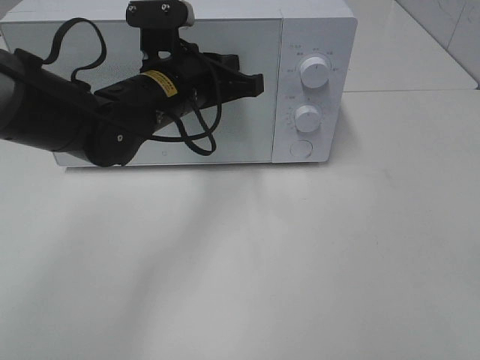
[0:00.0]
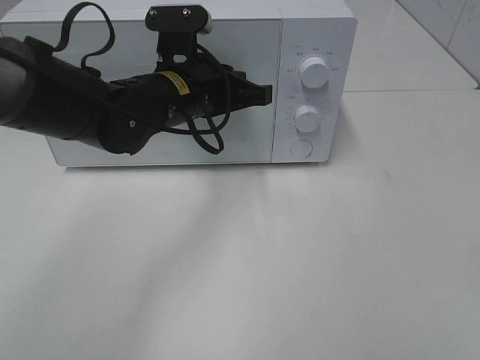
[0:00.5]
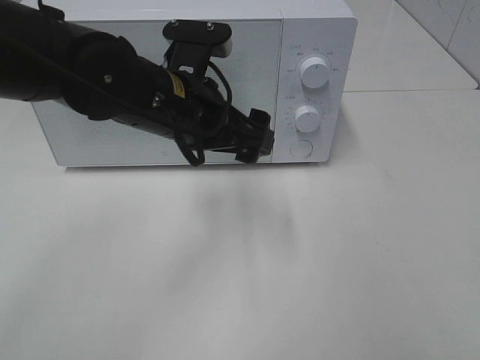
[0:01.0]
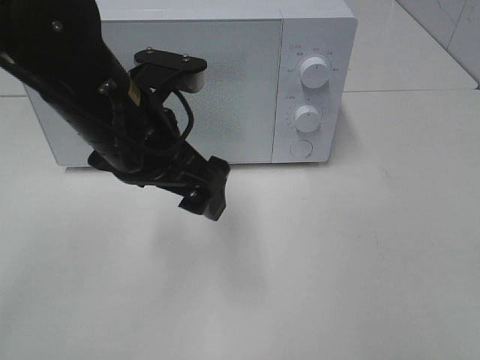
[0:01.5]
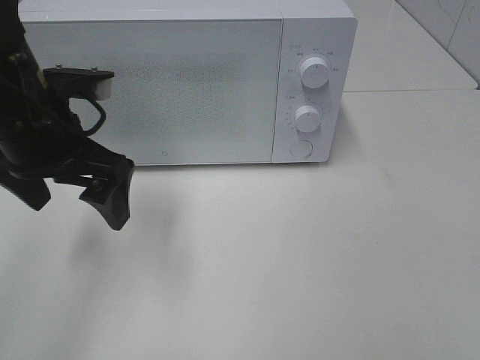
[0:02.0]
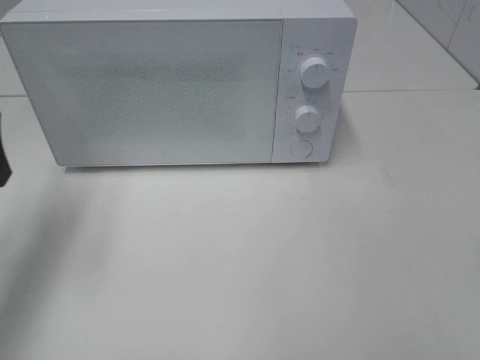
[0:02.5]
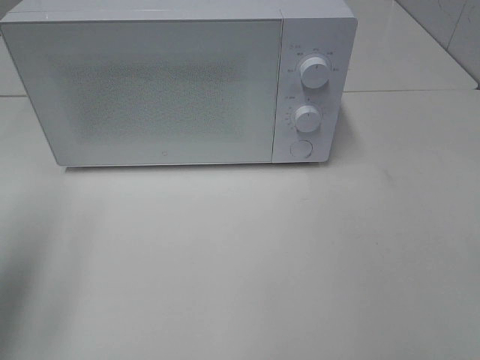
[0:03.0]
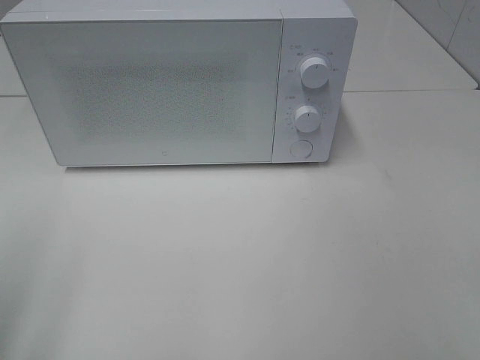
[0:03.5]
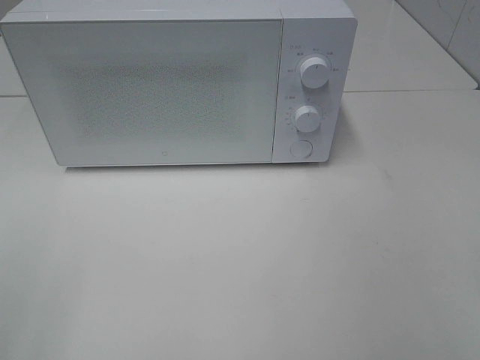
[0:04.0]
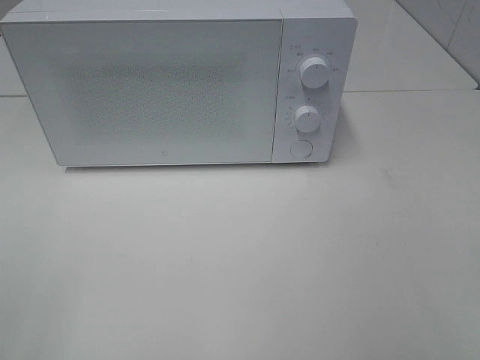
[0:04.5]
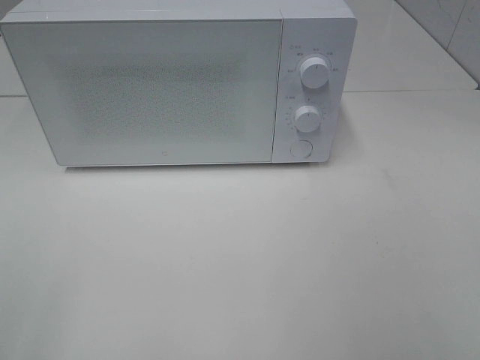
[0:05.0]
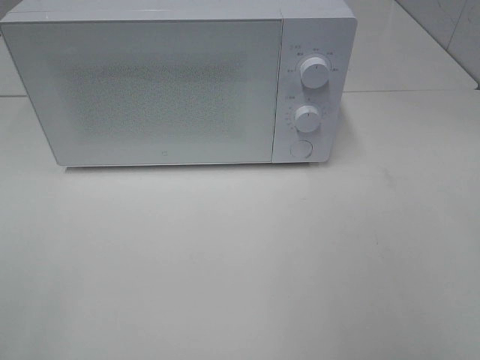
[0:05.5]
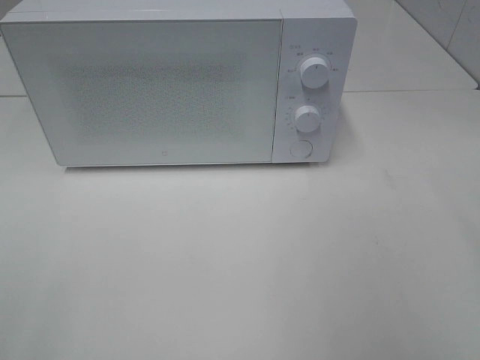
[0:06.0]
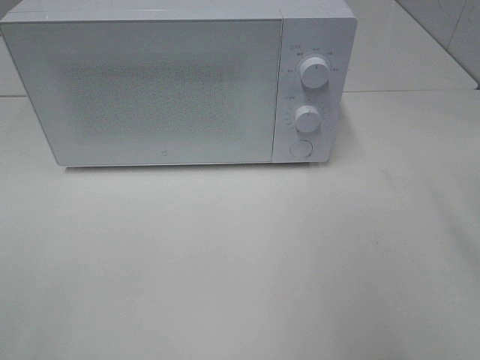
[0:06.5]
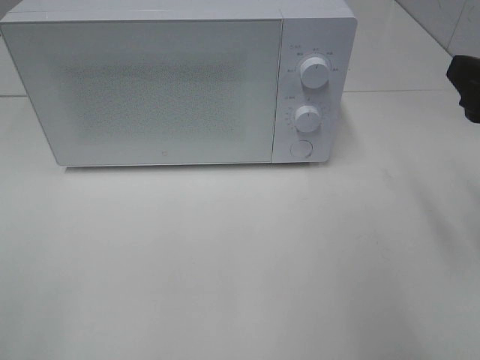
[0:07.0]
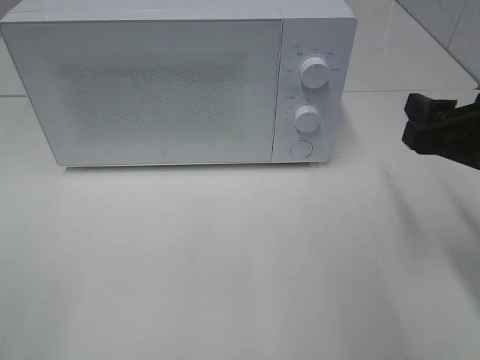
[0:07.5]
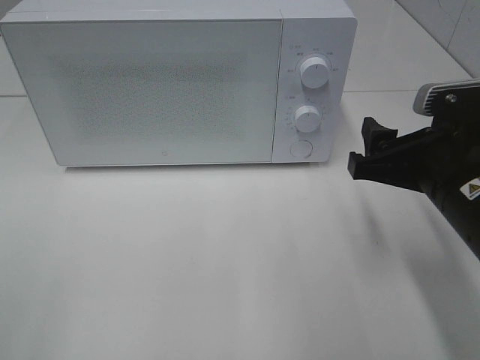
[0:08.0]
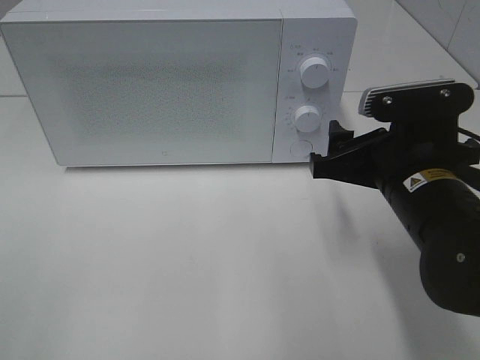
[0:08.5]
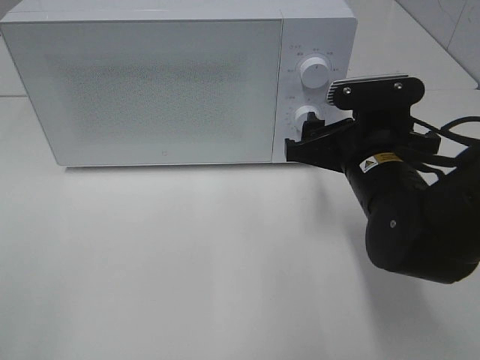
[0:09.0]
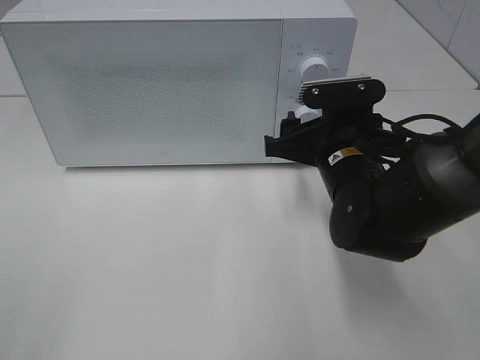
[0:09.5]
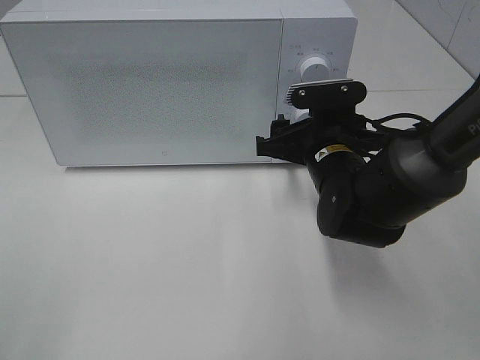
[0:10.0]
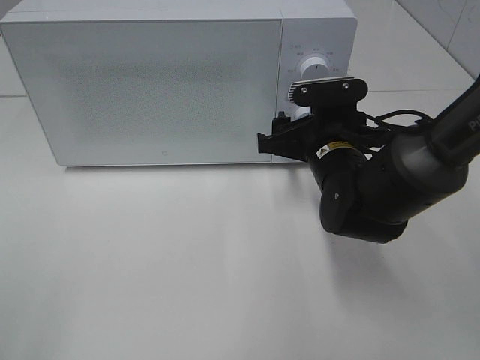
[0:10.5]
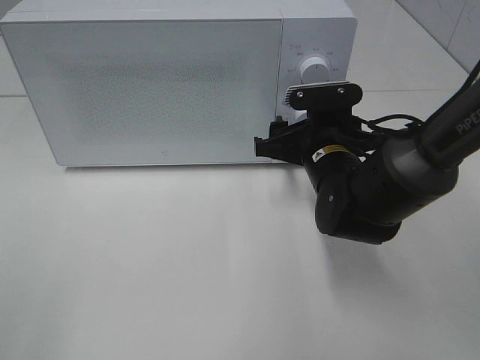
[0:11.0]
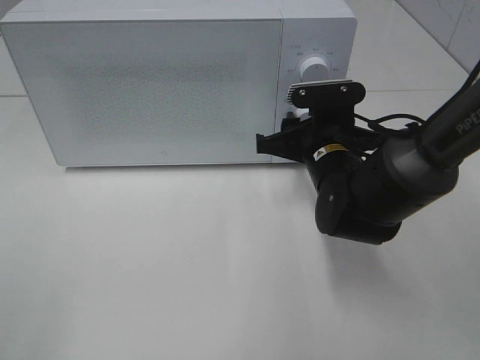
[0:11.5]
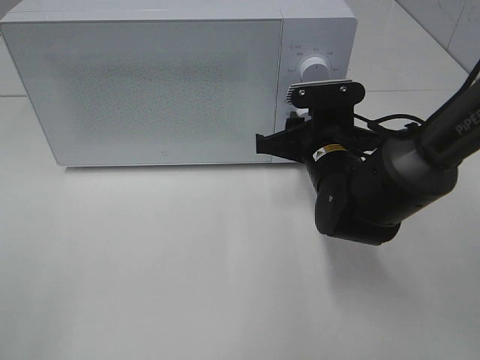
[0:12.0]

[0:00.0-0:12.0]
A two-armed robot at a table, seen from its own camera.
Task of the whole recording: Heat the burger.
0:00.0 to 0:02.0: The left gripper is displaced to the left and backward by some 15 cm, and opens.
0:02.0 to 0:04.0: The left gripper moves backward and to the left, roughly 30 cm.
0:06.0 to 0:08.0: The right gripper moves downward, forward and to the left, roughly 20 cm.
0:08.0 to 0:10.0: The right gripper travels forward, to the left and downward by roughly 15 cm.
0:10.0 to 0:12.0: The right gripper closes its fingers.

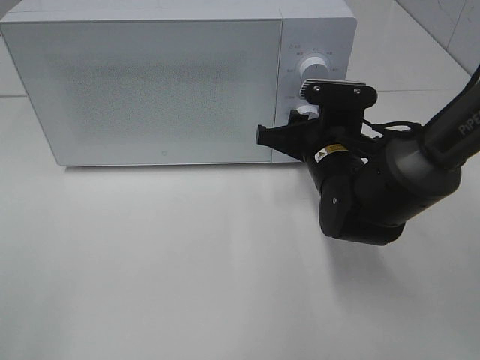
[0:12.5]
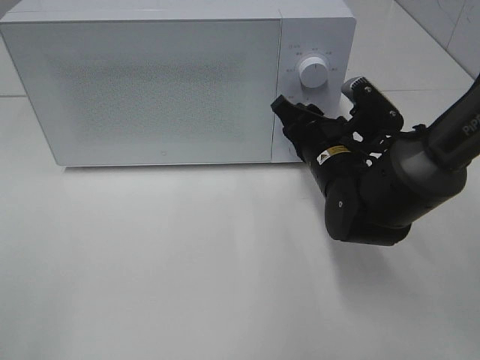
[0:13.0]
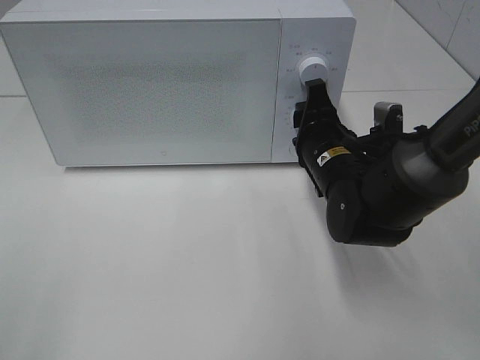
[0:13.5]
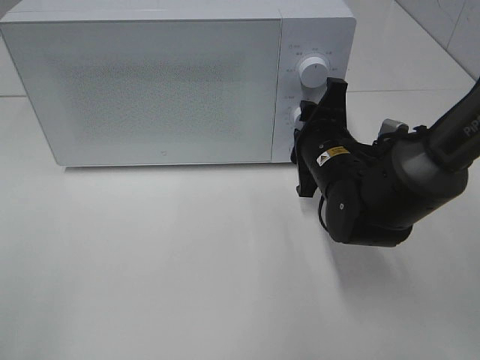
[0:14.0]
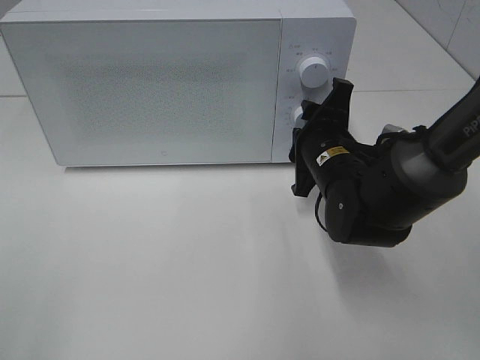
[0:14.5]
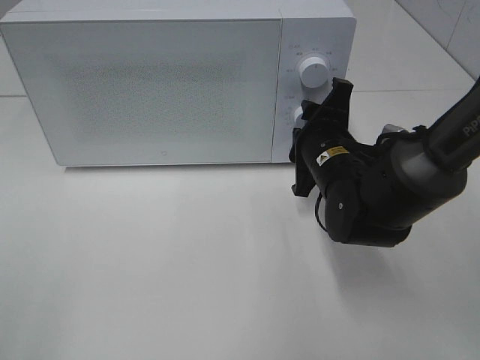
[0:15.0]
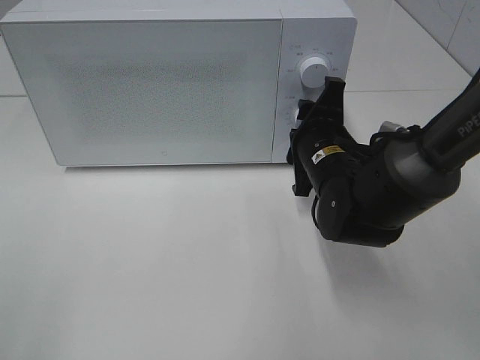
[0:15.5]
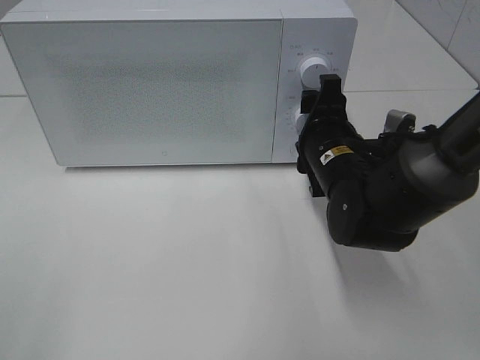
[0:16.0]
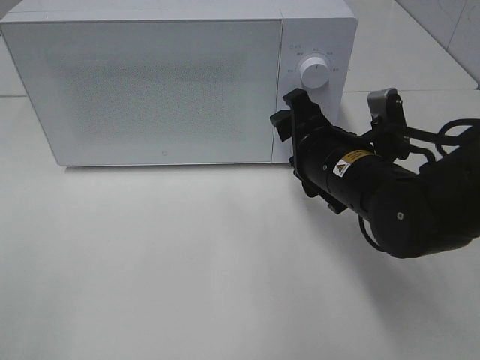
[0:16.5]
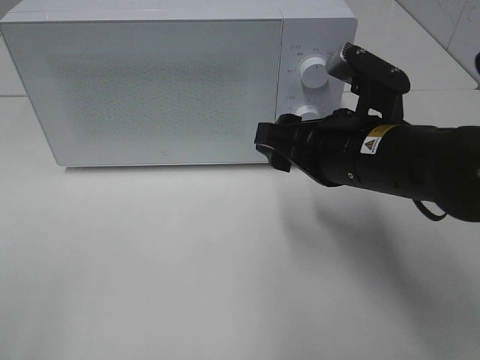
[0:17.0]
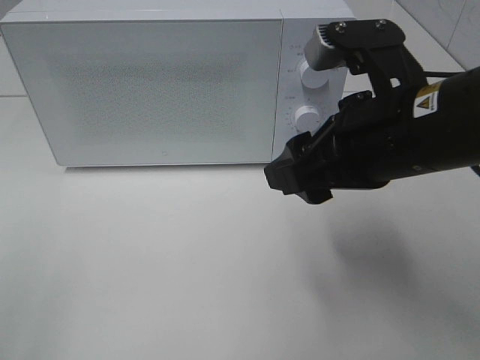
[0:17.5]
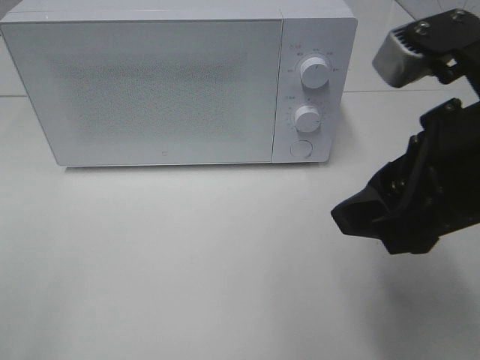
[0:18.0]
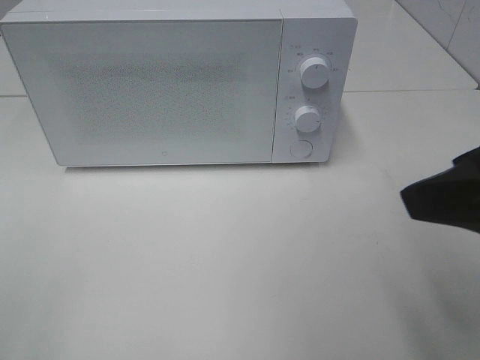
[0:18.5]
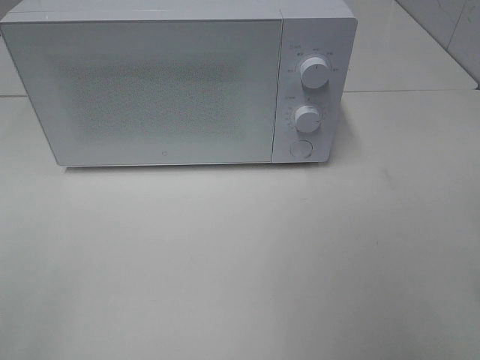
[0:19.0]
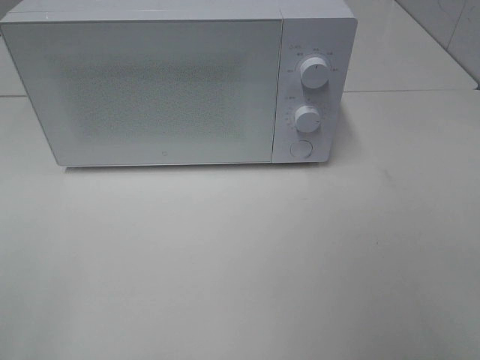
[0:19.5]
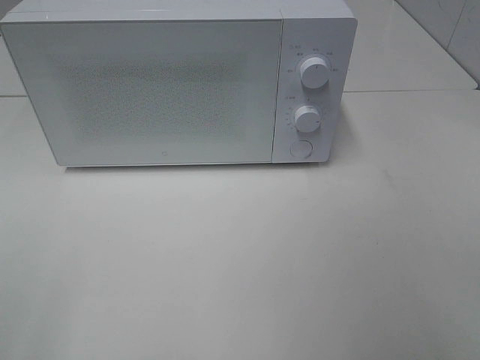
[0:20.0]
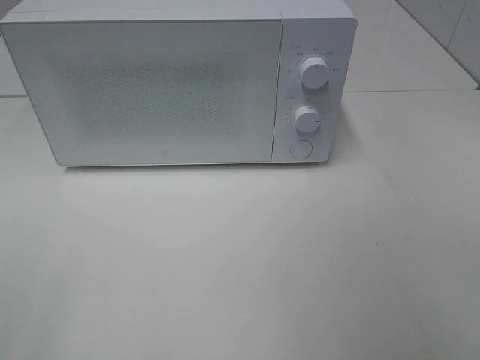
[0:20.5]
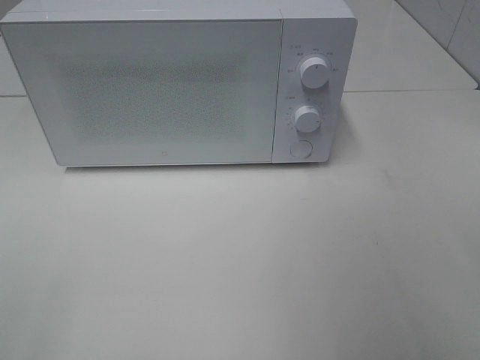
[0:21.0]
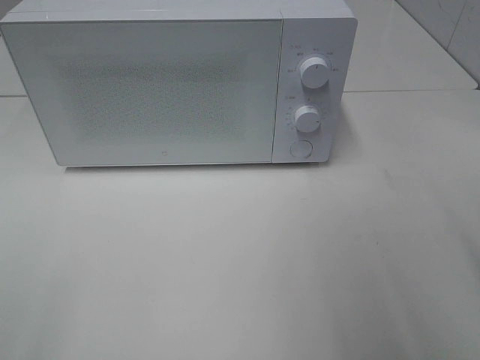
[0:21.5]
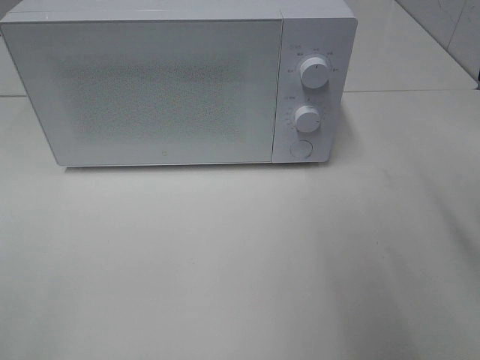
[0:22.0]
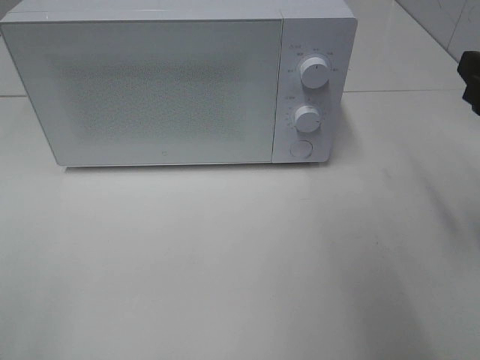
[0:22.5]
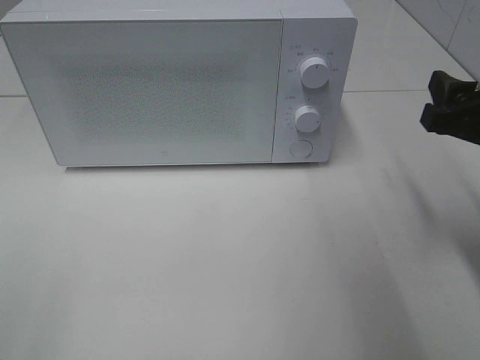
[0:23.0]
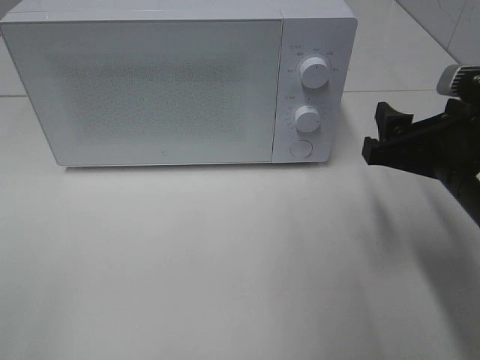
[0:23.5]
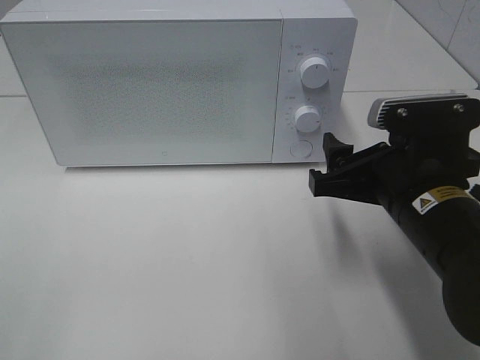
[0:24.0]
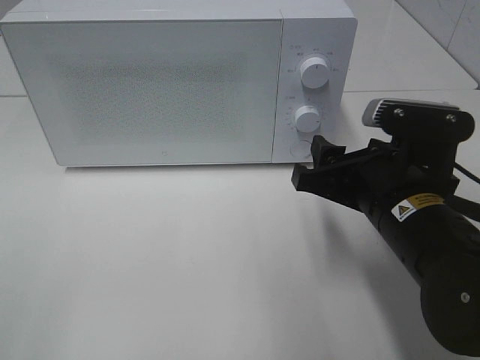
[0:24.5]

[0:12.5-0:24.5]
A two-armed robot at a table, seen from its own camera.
Task of the whole recording: Heat the burger.
Step, 0:12.5 to 0:15.5: Right hand: twist timer button.
0:14.5 to 0:16.5: The right gripper ends up some 5 cm from where it was.
0:16.5 to 0:18.5: The right gripper is displaced upward, backward and to the right by approximately 25 cm.
0:18.5 to 0:20.5: The right gripper goes some 15 cm backward and to the right.
0:20.5 to 0:22.5: The right gripper travels forward by approximately 20 cm.
0:22.5 to 0:24.5: The right gripper heads to the left and downward, covering some 15 cm.

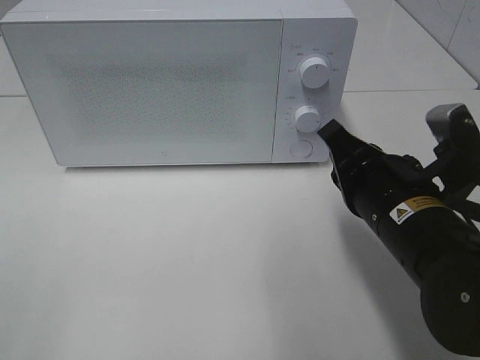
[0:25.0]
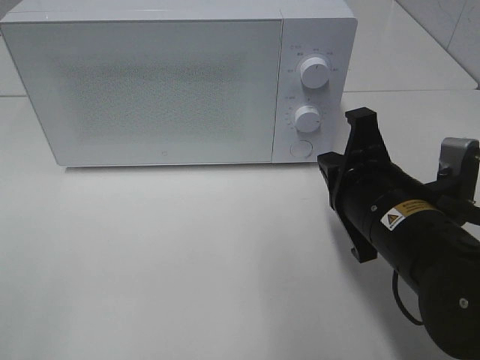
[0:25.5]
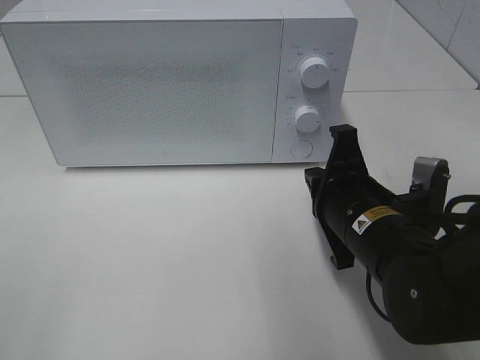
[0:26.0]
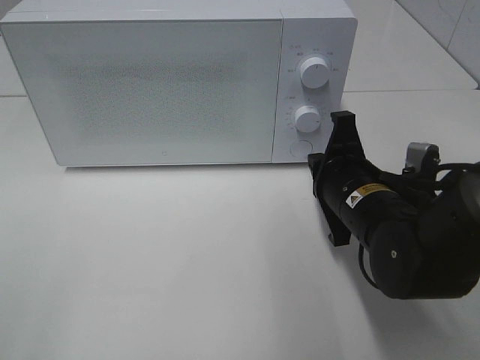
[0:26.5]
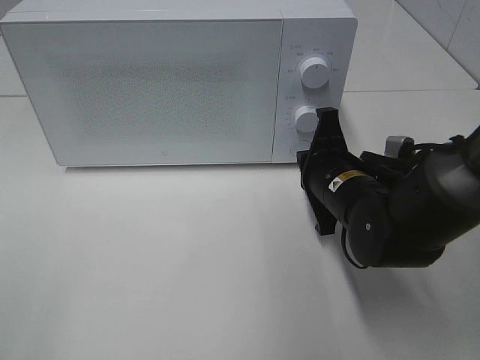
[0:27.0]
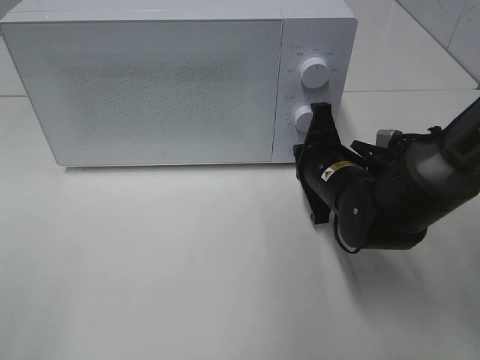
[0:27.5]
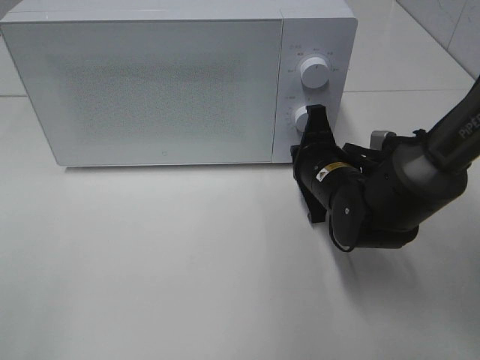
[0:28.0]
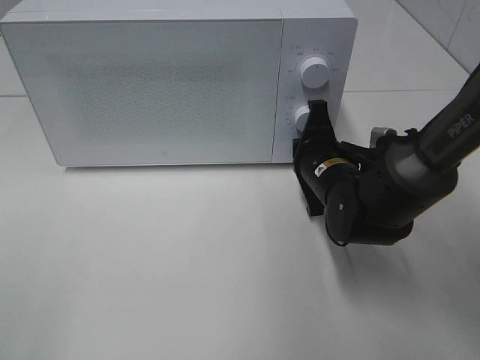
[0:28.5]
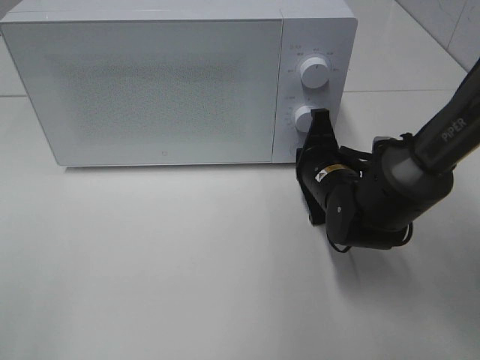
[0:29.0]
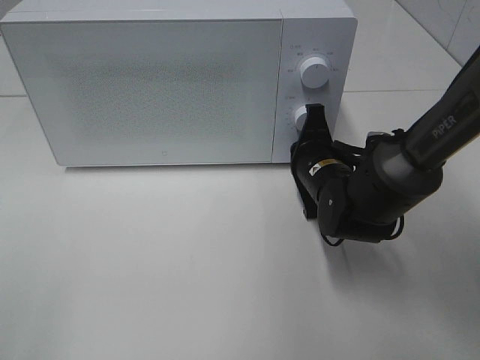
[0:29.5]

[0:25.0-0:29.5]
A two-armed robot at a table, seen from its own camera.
Task of the whole recording: Heat the burger.
0:25.0 to 0:27.0: The right gripper heads forward and downward, covering approximately 10 cm.
0:27.0 to 0:29.5: The right gripper travels forward by about 5 cm.
